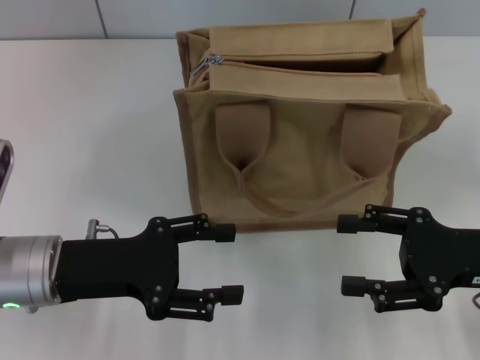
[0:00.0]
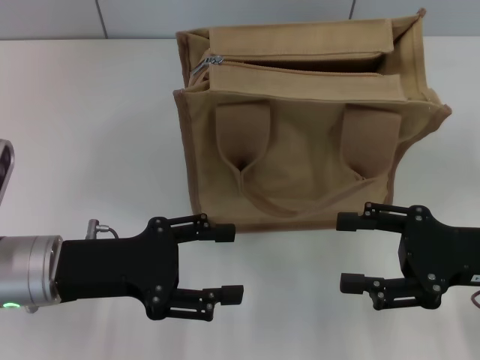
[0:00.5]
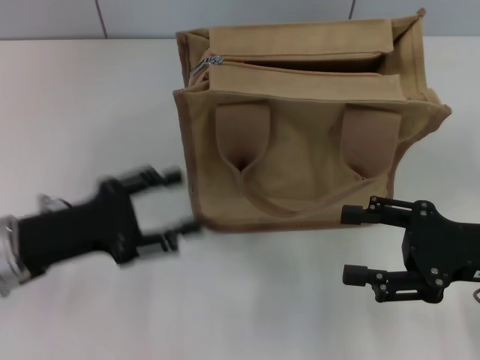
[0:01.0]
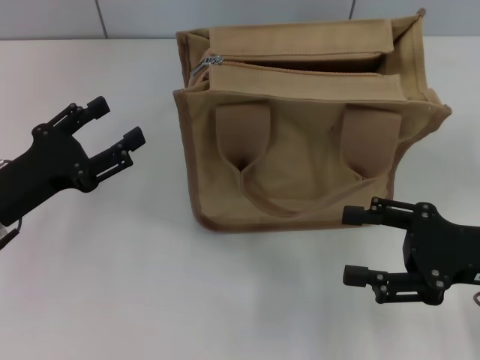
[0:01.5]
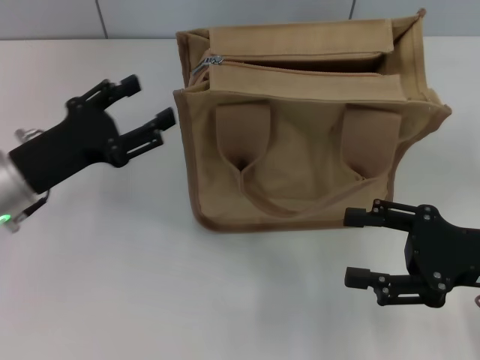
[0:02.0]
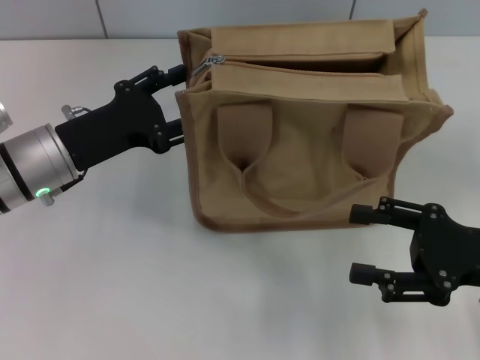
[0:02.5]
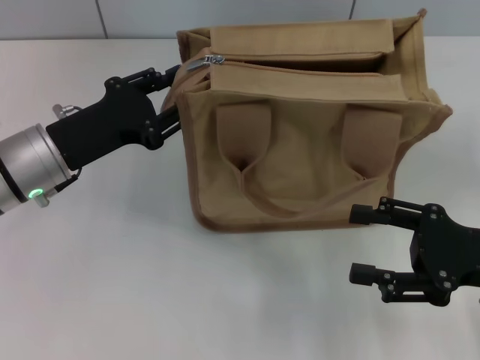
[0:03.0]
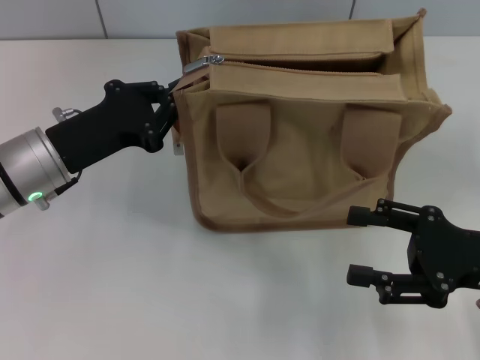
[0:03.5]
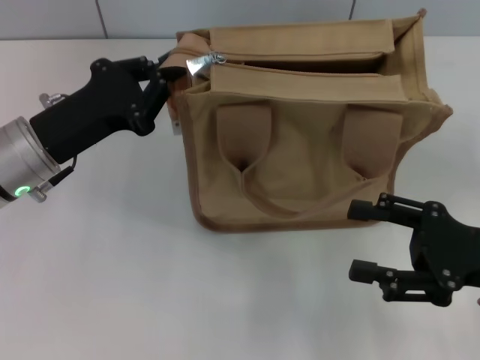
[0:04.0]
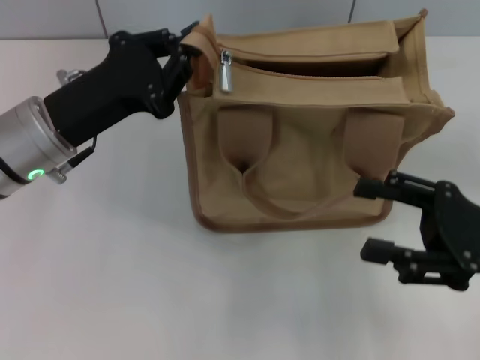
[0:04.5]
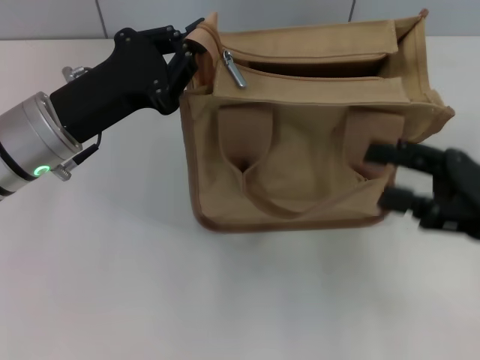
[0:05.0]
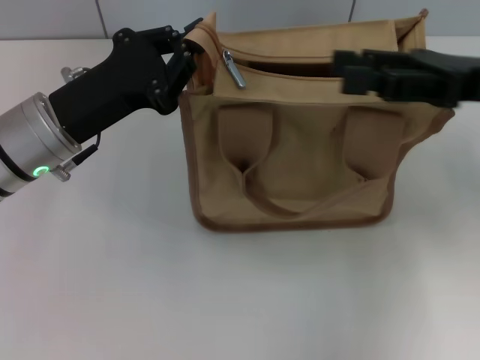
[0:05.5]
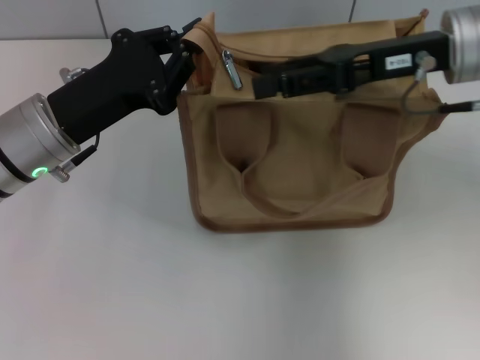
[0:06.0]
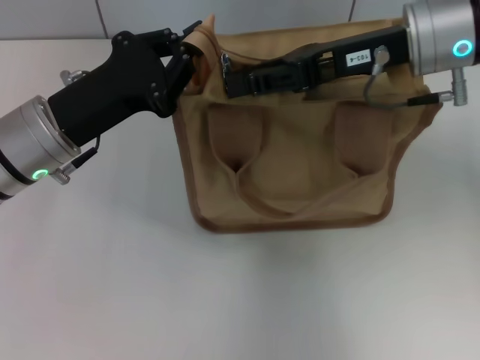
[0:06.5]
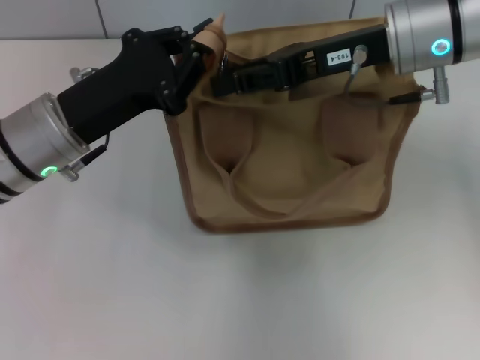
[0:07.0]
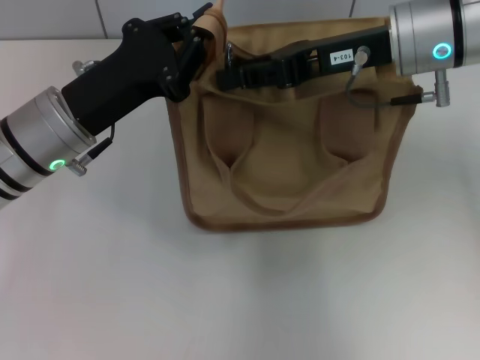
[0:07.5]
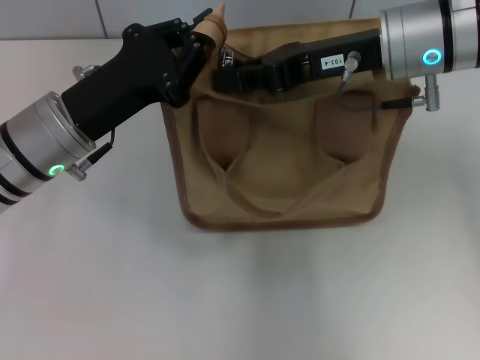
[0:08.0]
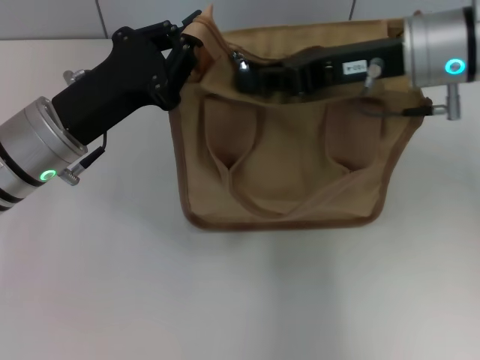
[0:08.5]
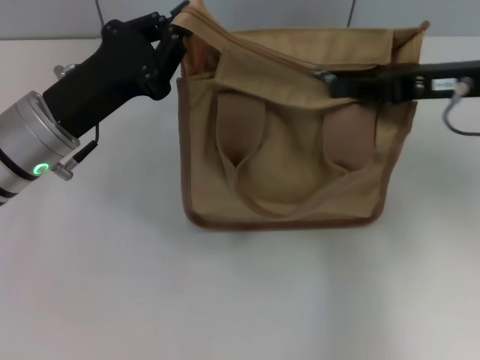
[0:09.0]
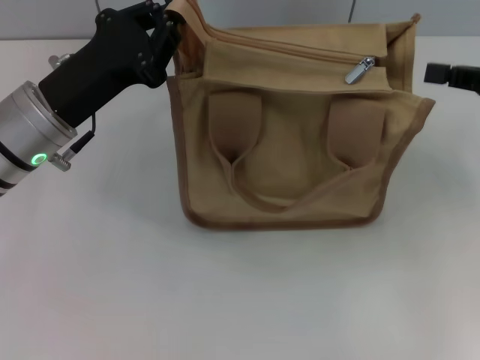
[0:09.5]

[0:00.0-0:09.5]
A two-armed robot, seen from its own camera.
Step, 0:00.0 to 0:09.0: Pull up the zipper with your right hand.
0:00.0 to 0:02.0: The left gripper travels forward by roughly 5 cm.
0:02.0 to 0:04.0: The left gripper closes its fingers.
0:04.0 to 0:05.5: The right gripper heads forward and upward, covering about 15 cm.
0:05.5 to 0:07.5: The right gripper shifts roughly 10 cm to the left and forward, and closes its fingers.
0:07.5 to 0:09.5: The right gripper goes about 20 cm to the right and backward, and closes.

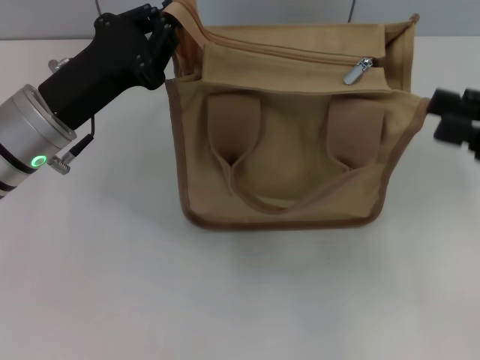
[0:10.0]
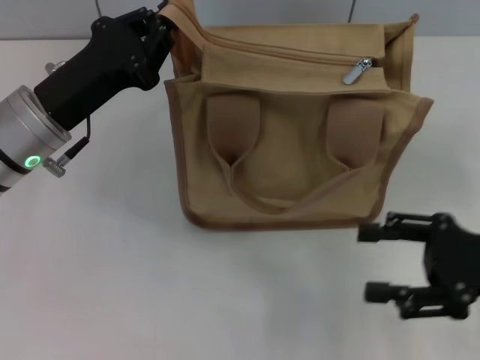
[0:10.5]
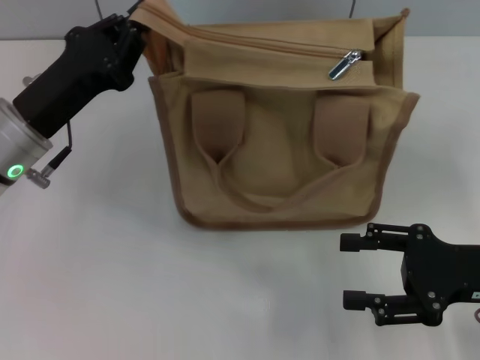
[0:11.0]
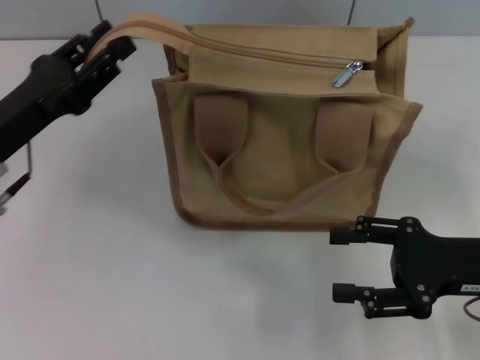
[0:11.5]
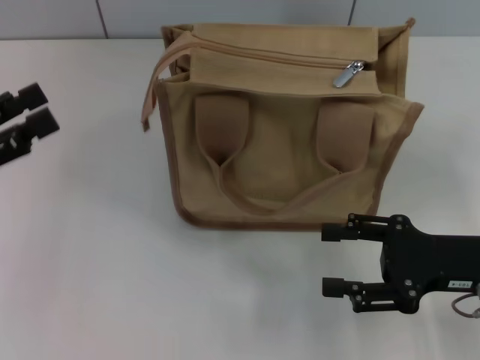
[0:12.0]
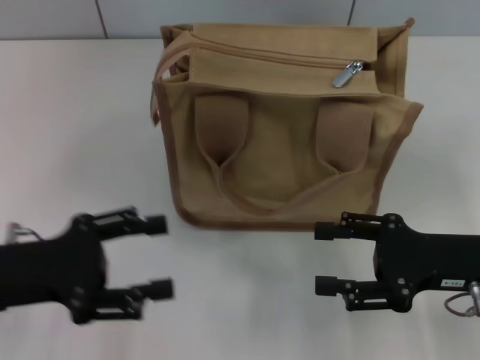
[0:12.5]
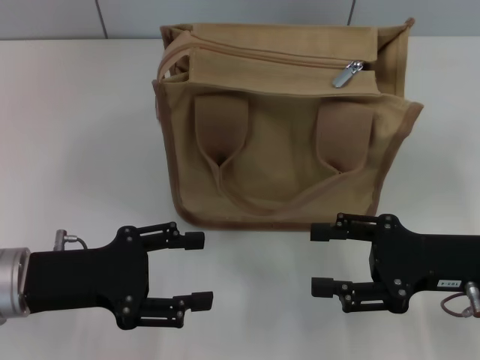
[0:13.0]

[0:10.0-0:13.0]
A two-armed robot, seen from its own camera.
Step, 0:10.0 to 0:11.5: Grab the zipper with your left hand.
0:10.0 to 0:11.5: The right gripper goes approximately 10 cm downward and to the left, and opens its fingers. Meanwhile the left gripper moves to the left, about 5 cm.
0:11.5 to 0:13.0: The left gripper shifts approximately 5 cm backward, reaches approximately 5 cm to the left, then returns, and opens up.
